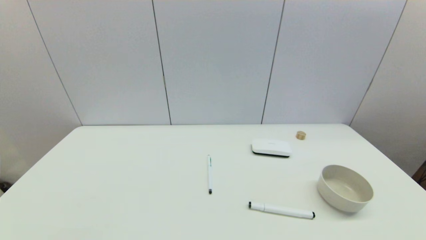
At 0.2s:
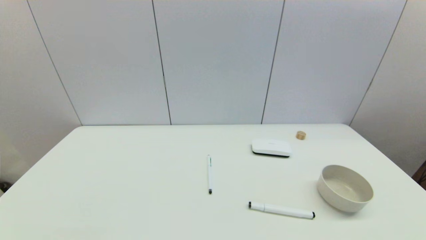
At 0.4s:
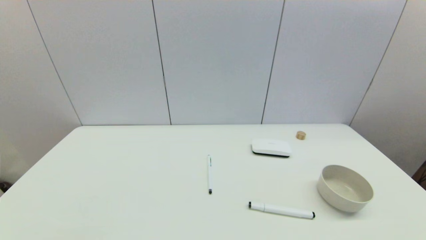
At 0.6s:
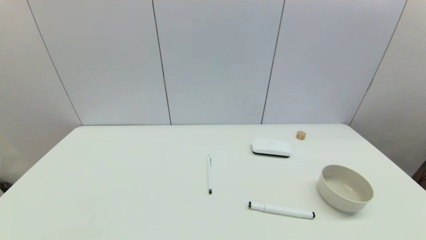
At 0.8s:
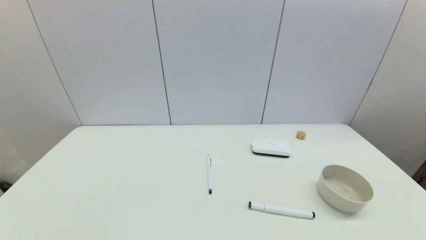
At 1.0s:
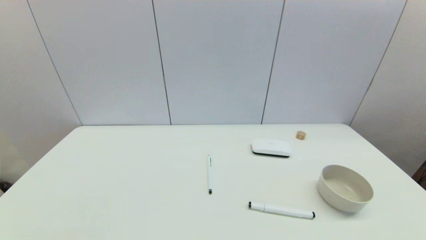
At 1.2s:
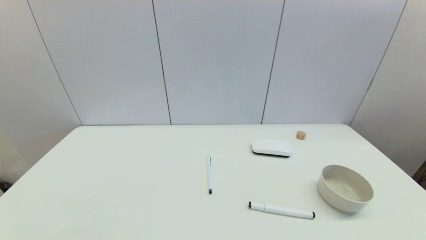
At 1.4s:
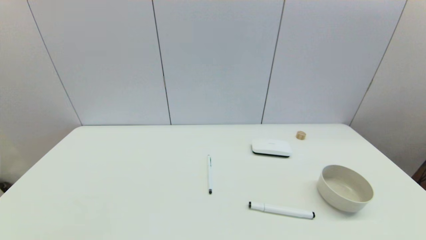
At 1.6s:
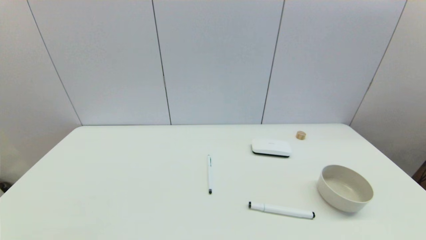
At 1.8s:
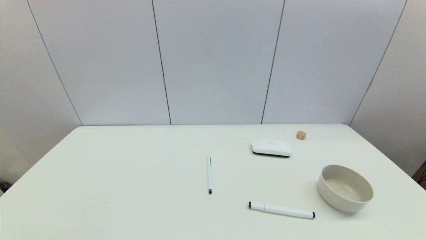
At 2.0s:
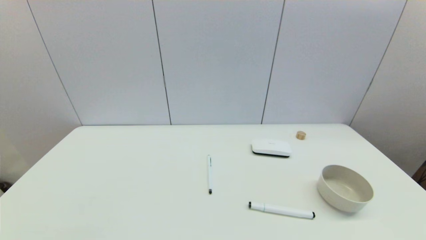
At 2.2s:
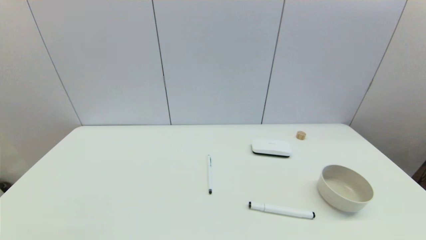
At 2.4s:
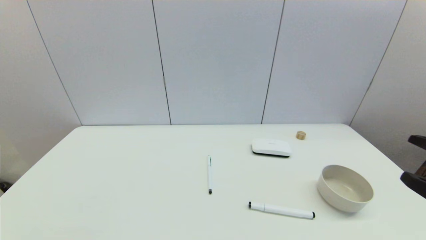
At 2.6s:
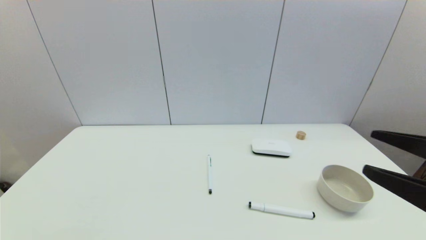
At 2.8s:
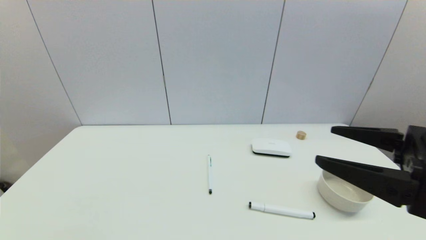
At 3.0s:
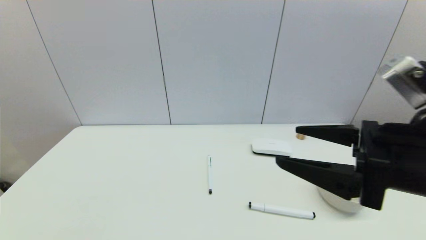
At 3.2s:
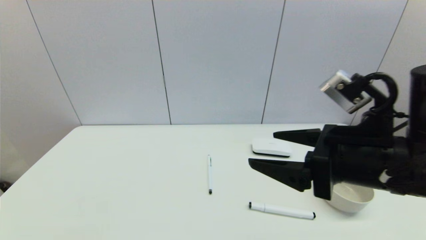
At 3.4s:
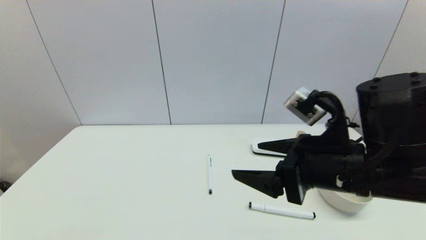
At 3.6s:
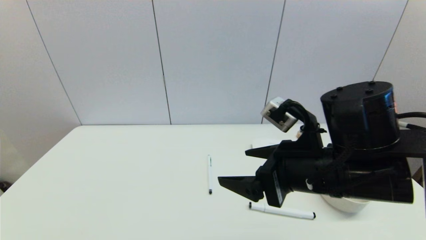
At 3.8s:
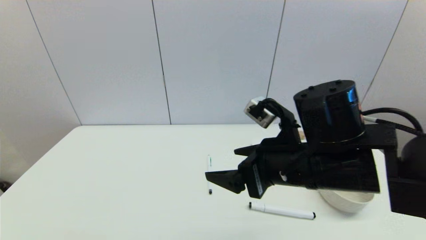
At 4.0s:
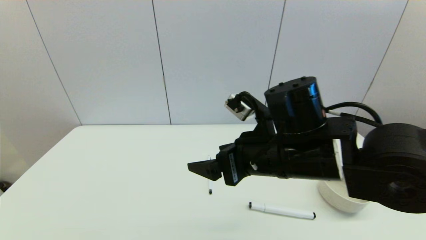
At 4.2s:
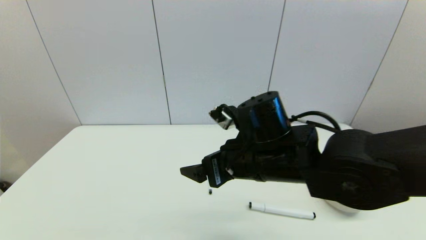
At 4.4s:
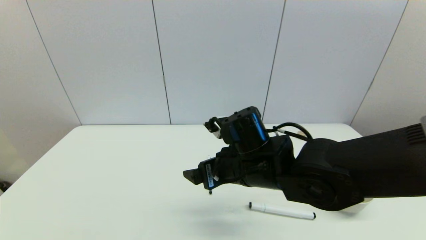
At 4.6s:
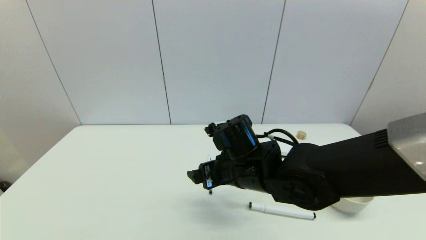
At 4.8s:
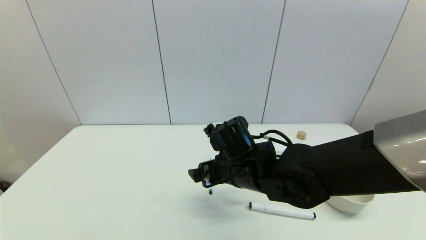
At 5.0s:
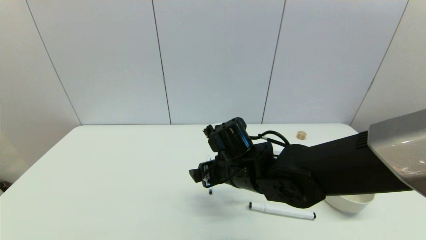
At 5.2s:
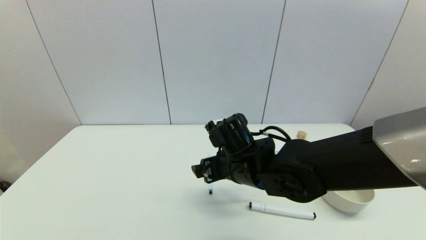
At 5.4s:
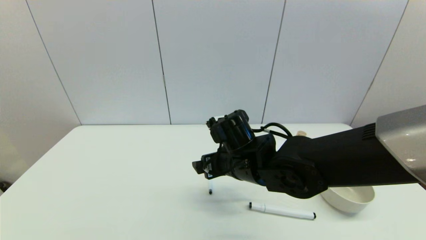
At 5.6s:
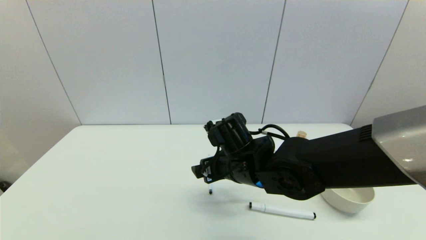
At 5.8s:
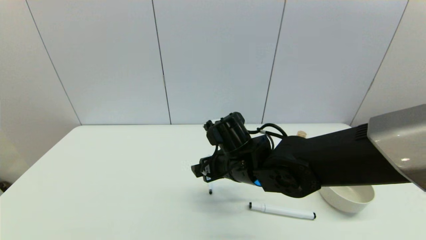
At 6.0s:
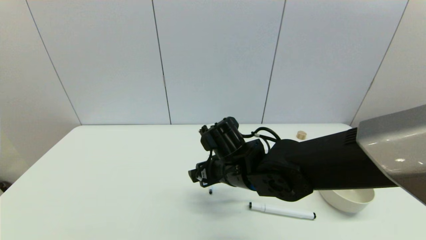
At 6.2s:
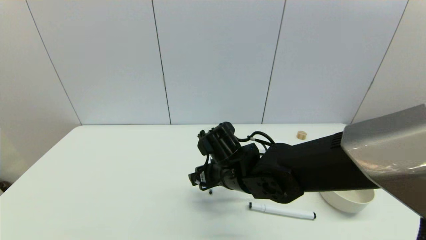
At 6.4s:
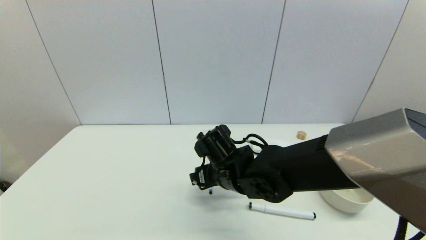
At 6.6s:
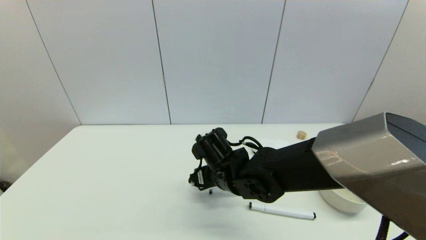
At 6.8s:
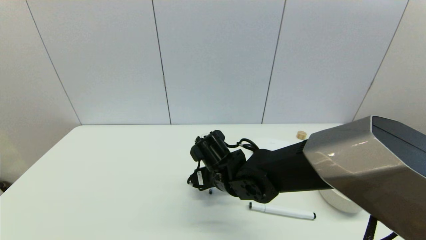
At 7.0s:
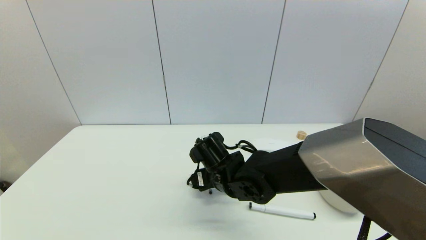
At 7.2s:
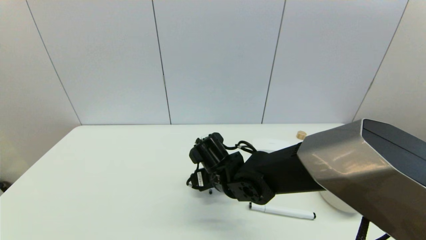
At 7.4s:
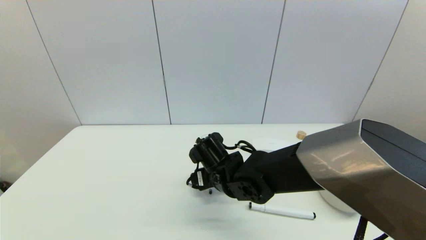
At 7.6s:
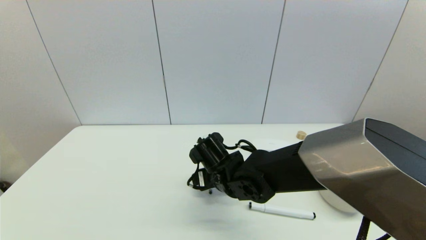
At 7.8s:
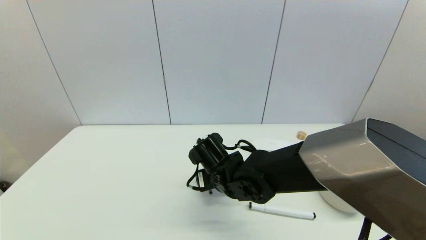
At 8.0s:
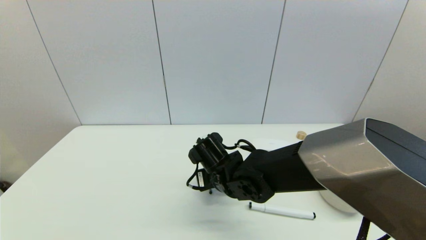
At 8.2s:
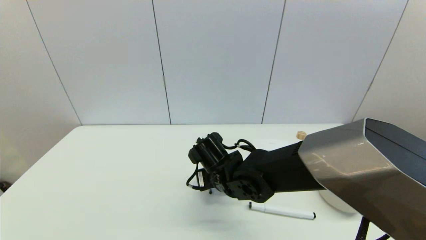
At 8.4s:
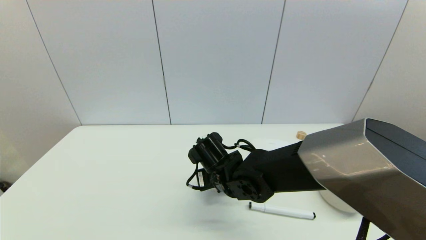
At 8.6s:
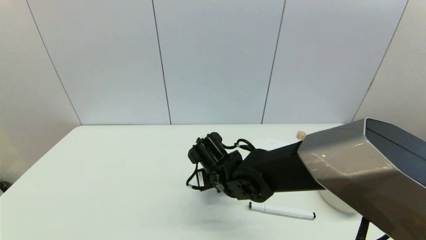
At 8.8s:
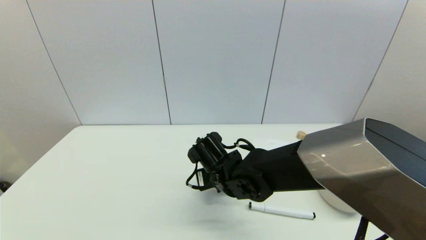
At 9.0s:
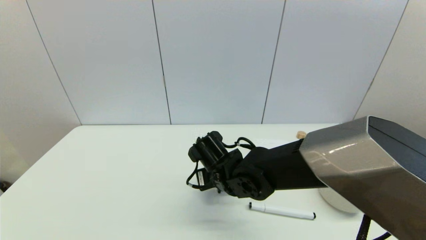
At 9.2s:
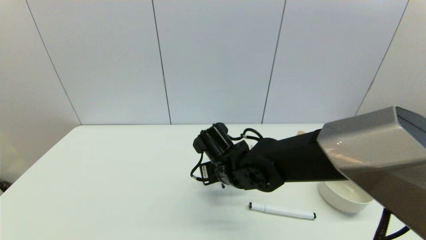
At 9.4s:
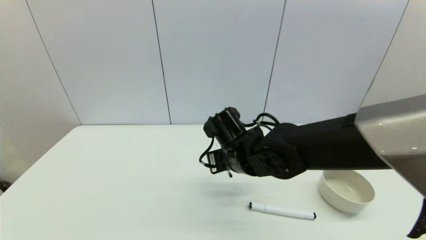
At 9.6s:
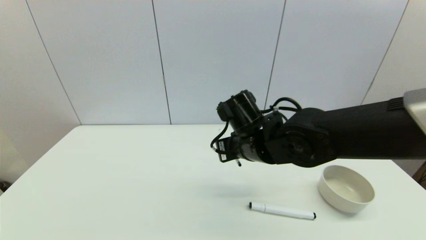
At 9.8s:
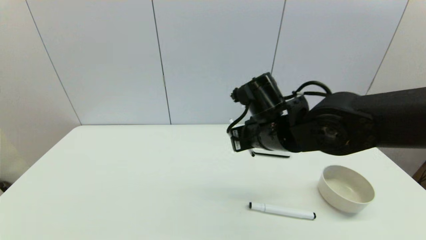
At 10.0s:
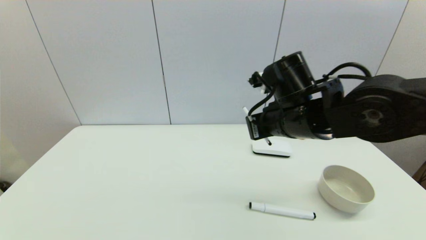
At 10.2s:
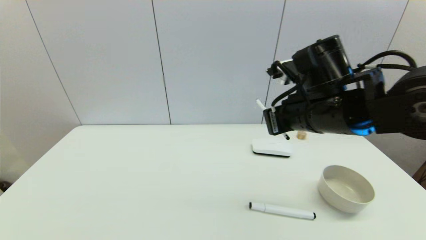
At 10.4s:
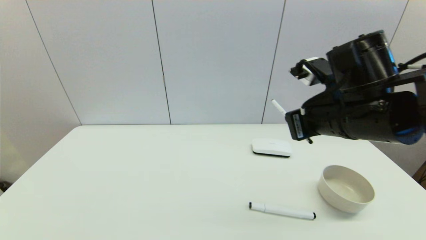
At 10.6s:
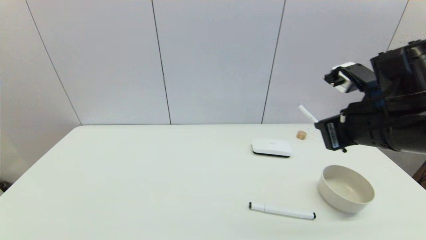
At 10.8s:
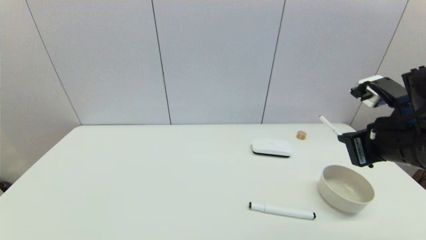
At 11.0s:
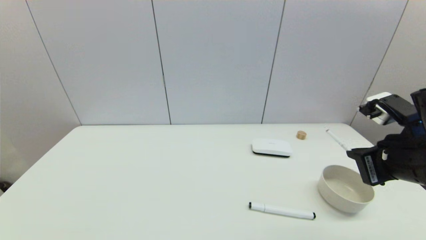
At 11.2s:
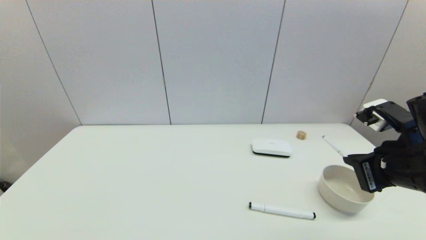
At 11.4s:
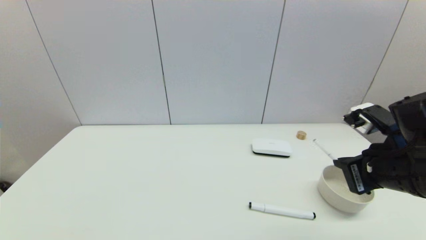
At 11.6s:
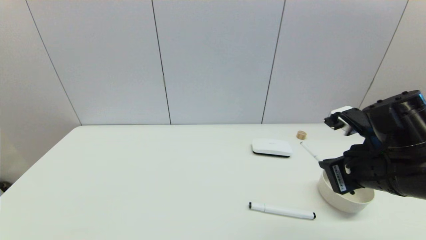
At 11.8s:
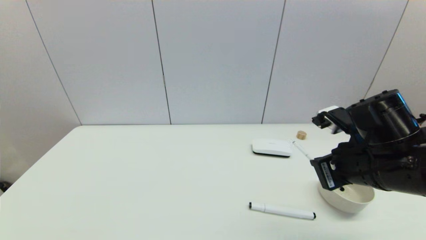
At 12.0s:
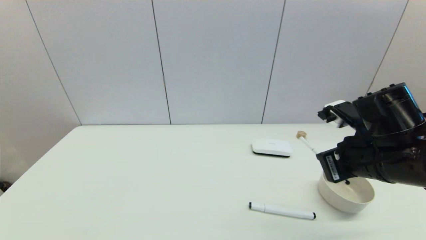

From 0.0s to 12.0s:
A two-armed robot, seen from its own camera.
Task of the whole recording: put the pen in the designated position.
Step, from 2.4s to 9.0s: Grasp the sign pen with right gripper.
From 1.6s to 3.0s: The right gripper goes about 20 cm forward, to the left and upward.
From 3.0s to 4.4s: The right gripper is displaced to the left, downward and forward by roughly 20 cm.
From 4.4s to 6.0s: The grippers move only a little.
From 6.0s to 7.6s: The right gripper shifts about 5 cm downward.
From 7.6s to 9.0s: The right gripper closes up.
From 9.0s to 10.4s: The right gripper heads to the right and upward, covering roughly 25 cm.
From 10.4s to 12.0s: The right gripper moves downward, about 5 cm.

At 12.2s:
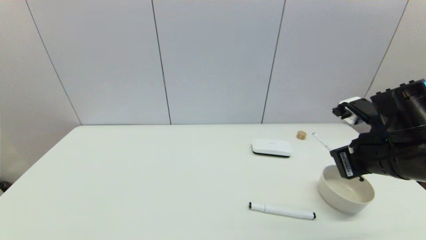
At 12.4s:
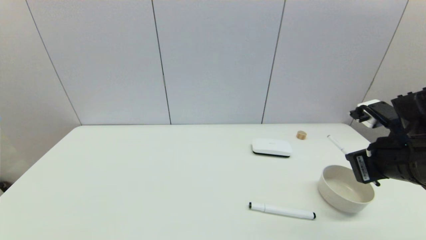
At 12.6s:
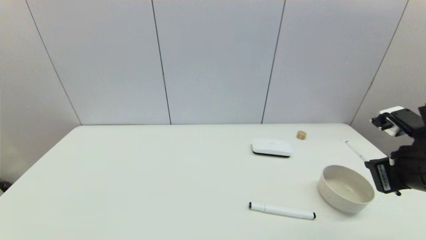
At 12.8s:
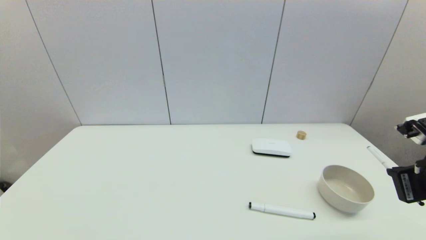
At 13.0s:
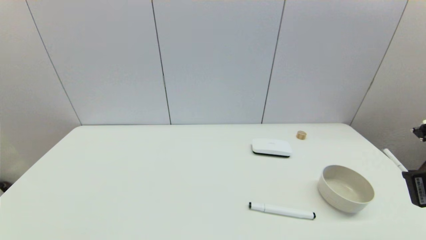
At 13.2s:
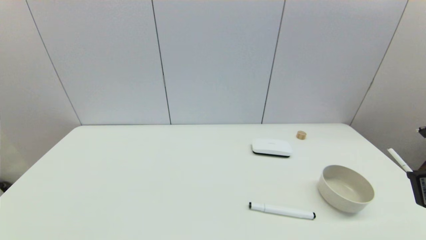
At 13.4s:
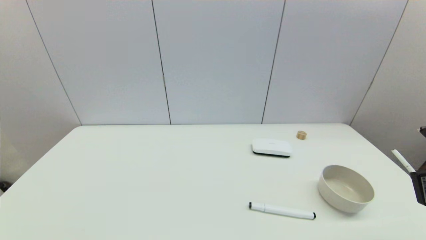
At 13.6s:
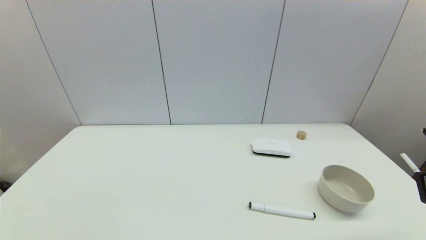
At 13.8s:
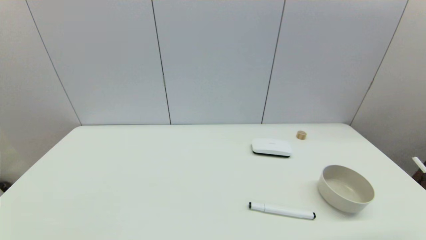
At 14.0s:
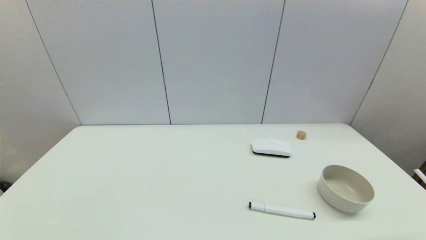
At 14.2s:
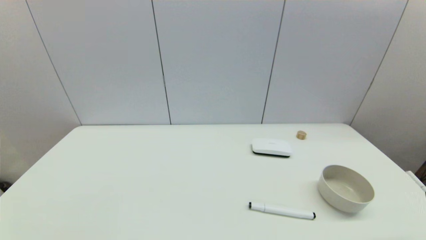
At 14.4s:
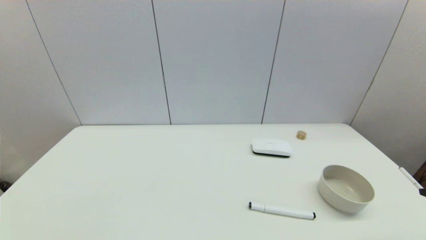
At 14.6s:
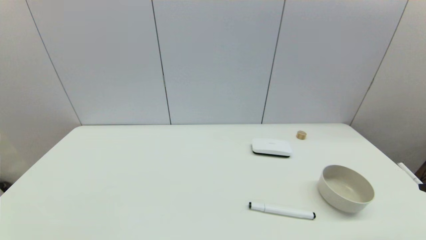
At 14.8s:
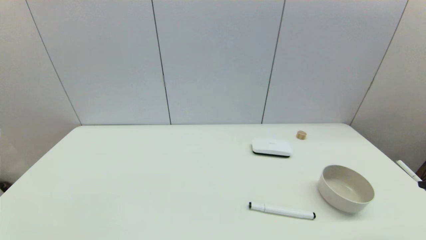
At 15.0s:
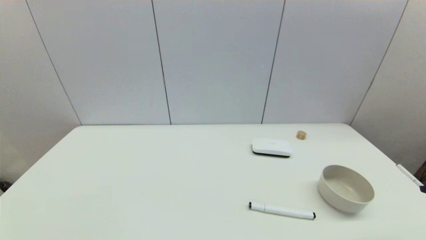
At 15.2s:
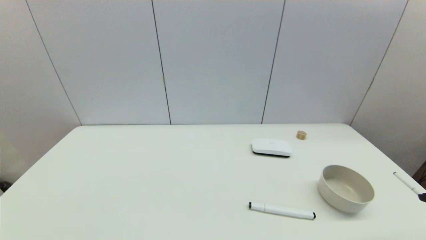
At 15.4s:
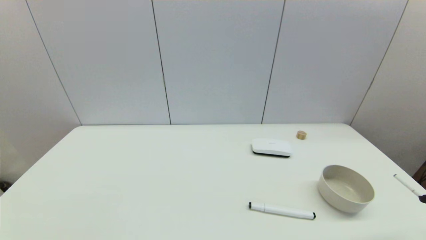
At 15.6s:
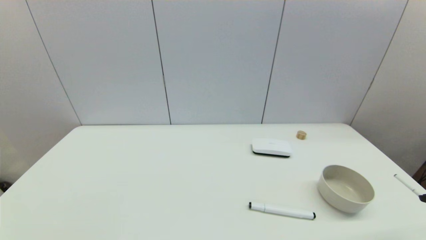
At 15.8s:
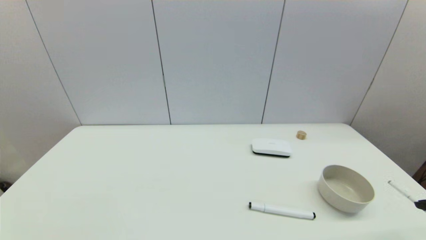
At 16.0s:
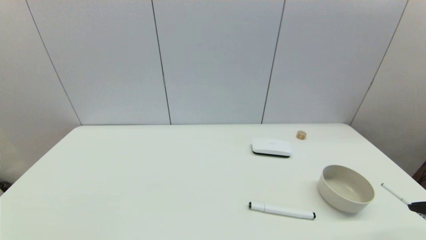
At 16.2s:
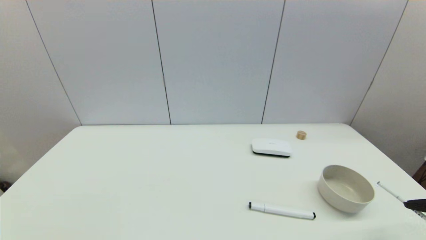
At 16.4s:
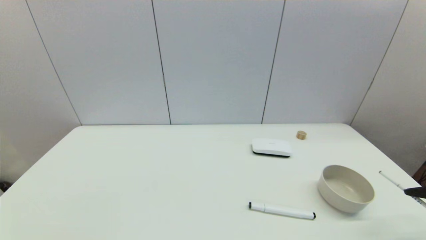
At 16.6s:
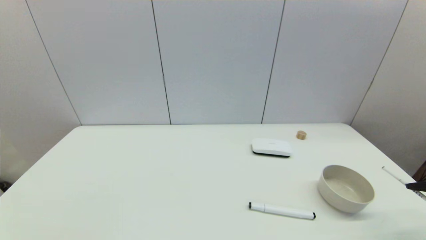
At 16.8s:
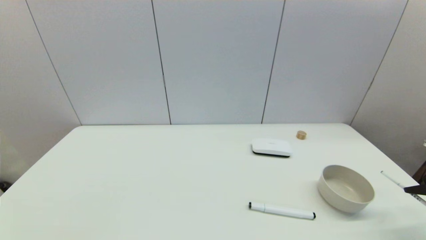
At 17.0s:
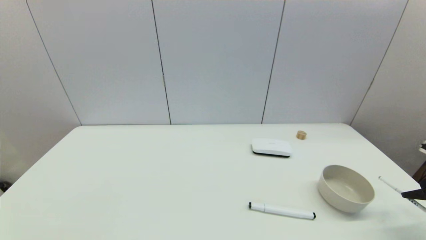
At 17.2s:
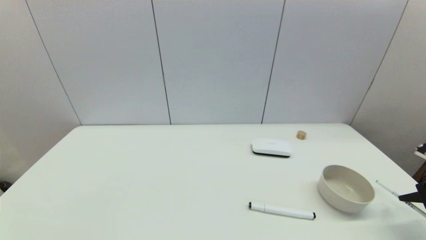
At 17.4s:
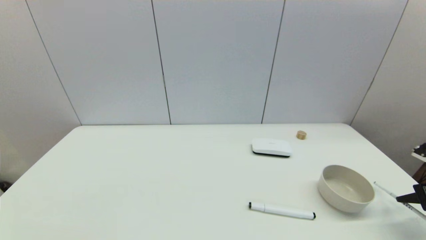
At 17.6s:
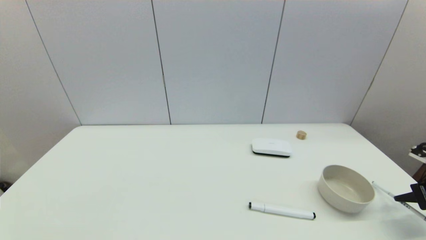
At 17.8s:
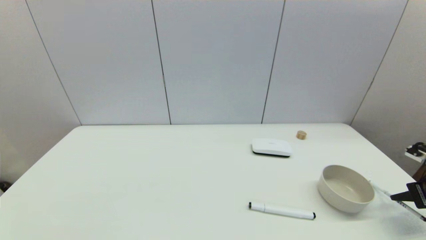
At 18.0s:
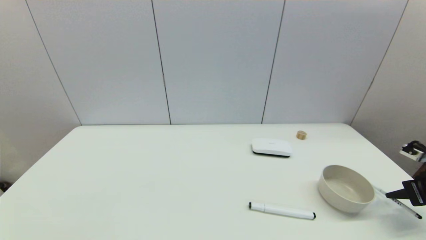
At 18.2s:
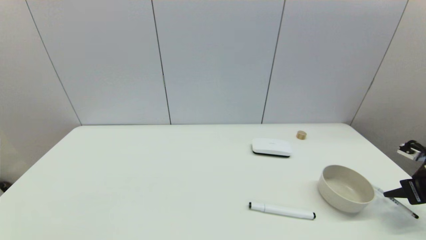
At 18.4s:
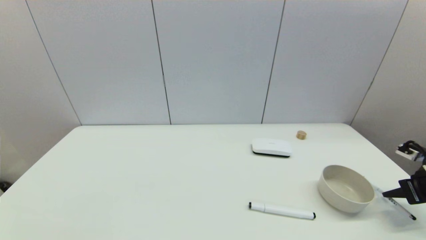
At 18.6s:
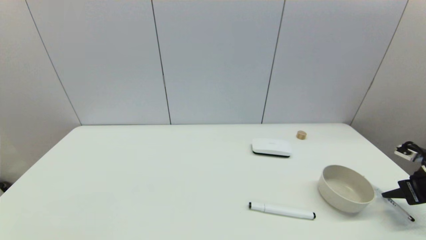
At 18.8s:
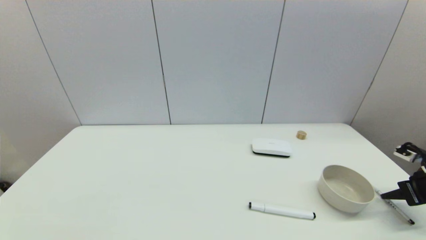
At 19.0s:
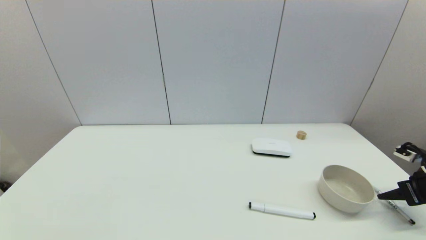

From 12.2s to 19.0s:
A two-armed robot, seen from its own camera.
Task of the whole recording: put the pen in the designated position.
From 12.2s to 13.6s: The right gripper heads to the right and backward, covering approximately 10 cm.
From 16.2s to 17.6s: The right gripper moves forward, some 5 cm.
From 17.6s to 19.0s: The right gripper opens.
